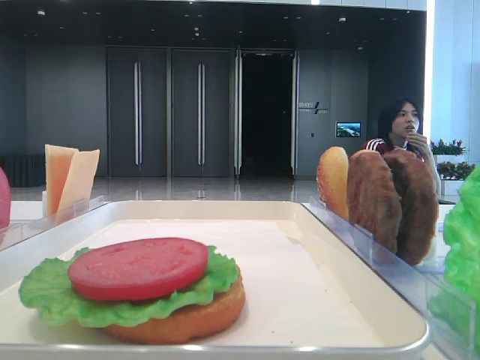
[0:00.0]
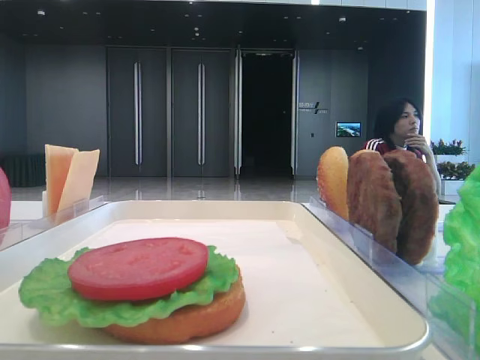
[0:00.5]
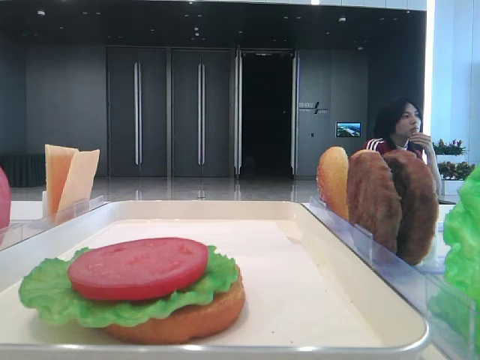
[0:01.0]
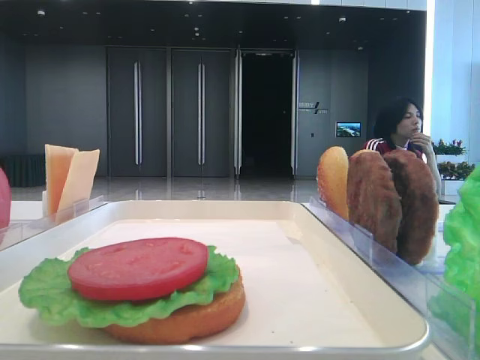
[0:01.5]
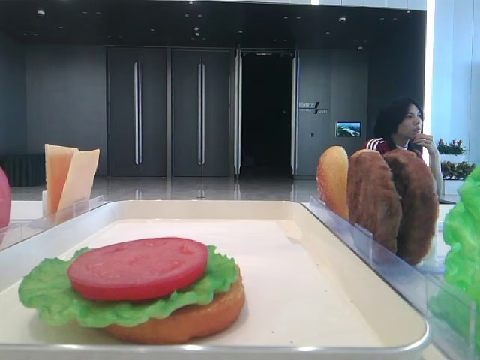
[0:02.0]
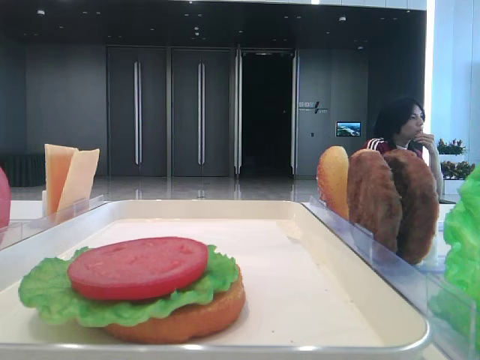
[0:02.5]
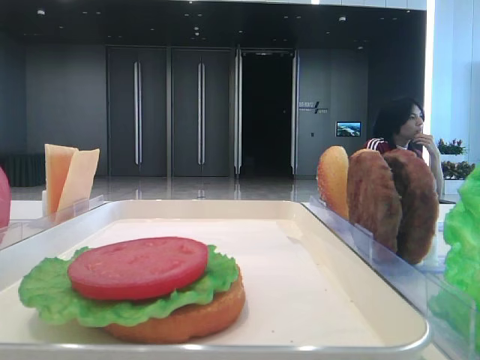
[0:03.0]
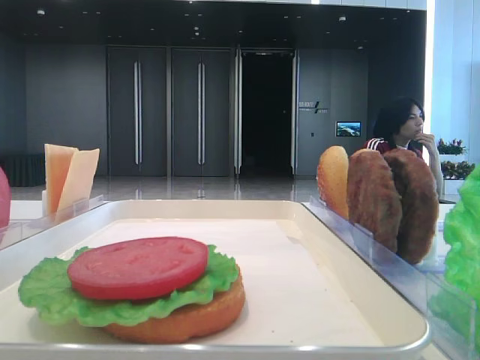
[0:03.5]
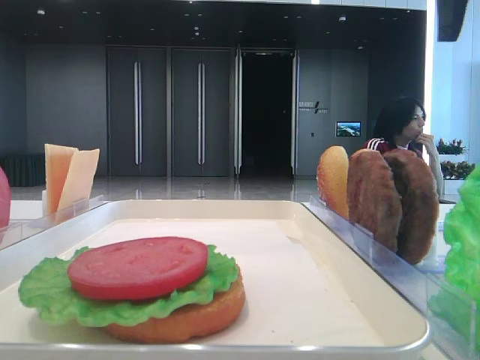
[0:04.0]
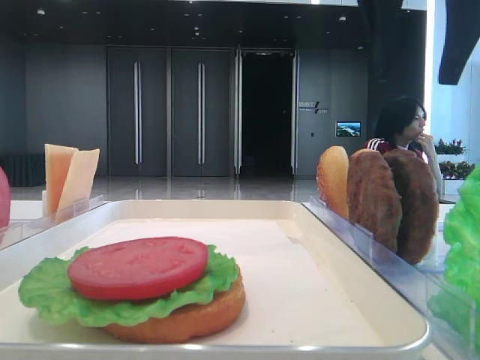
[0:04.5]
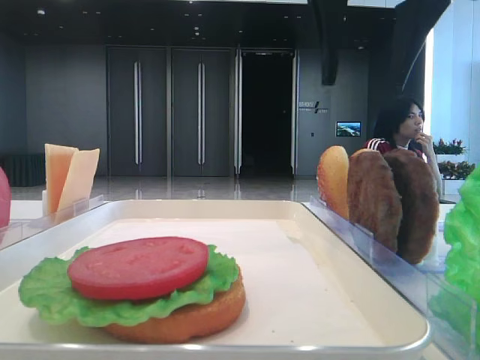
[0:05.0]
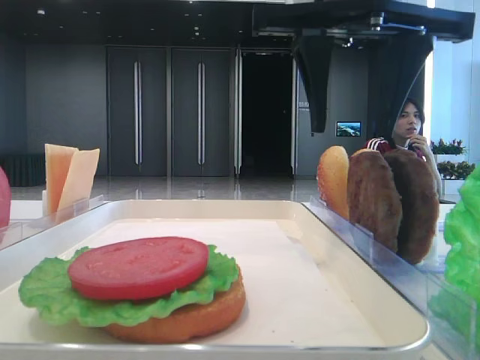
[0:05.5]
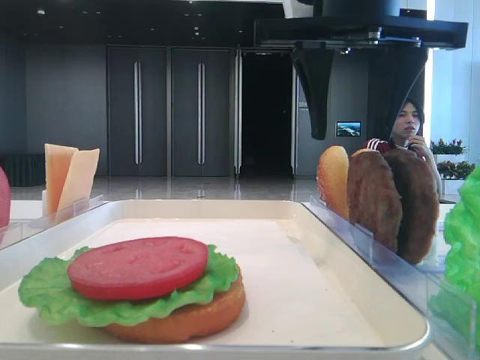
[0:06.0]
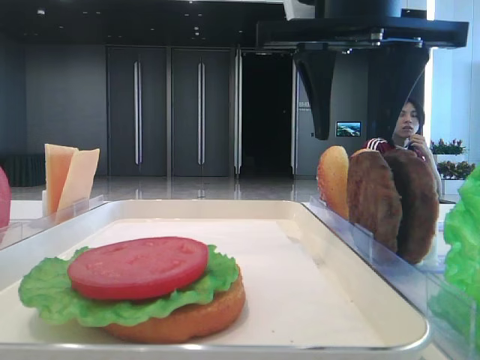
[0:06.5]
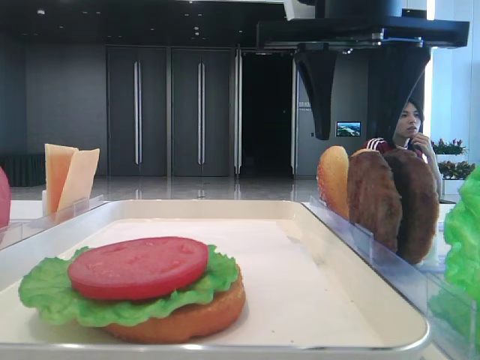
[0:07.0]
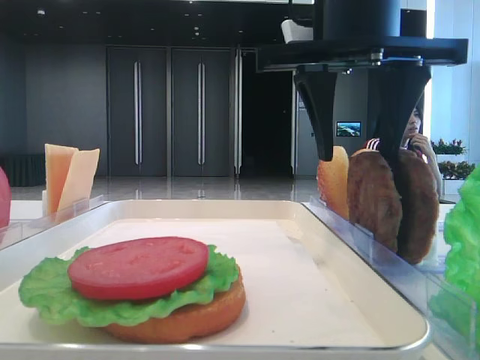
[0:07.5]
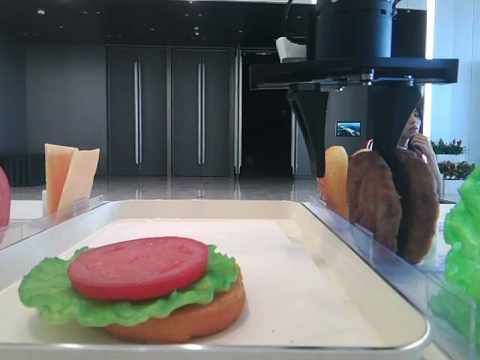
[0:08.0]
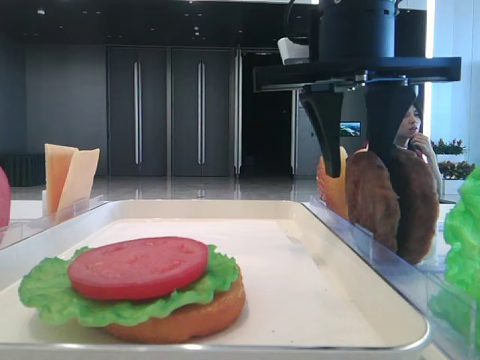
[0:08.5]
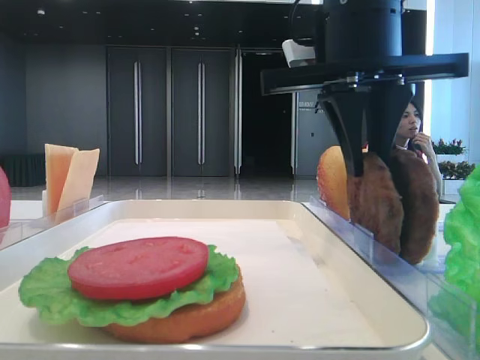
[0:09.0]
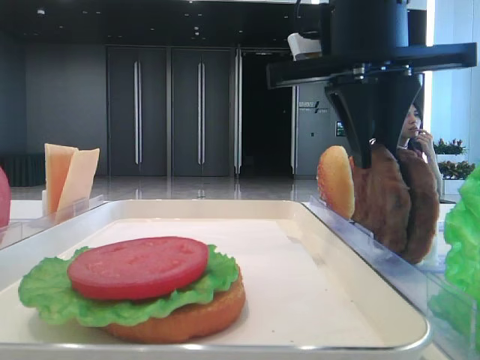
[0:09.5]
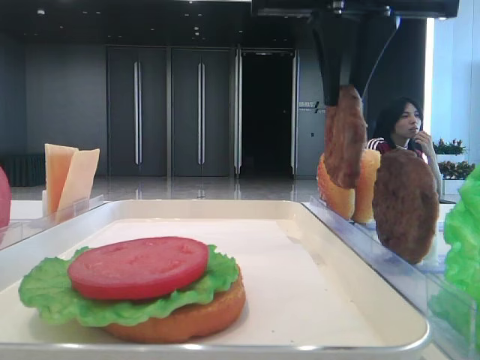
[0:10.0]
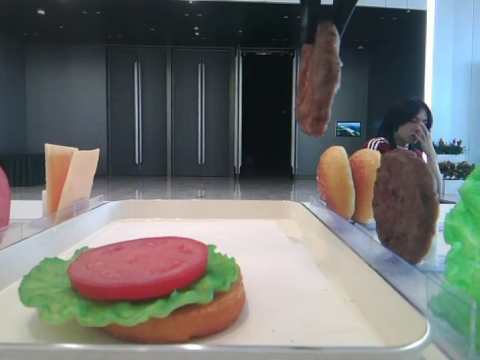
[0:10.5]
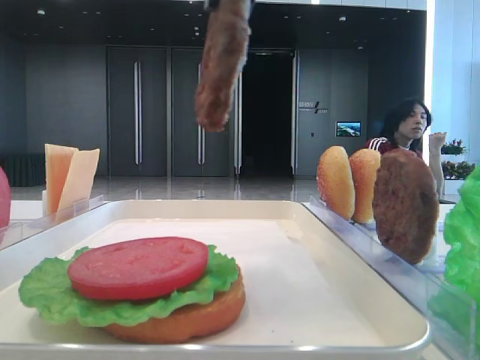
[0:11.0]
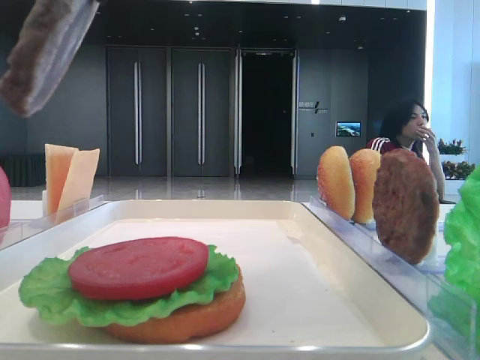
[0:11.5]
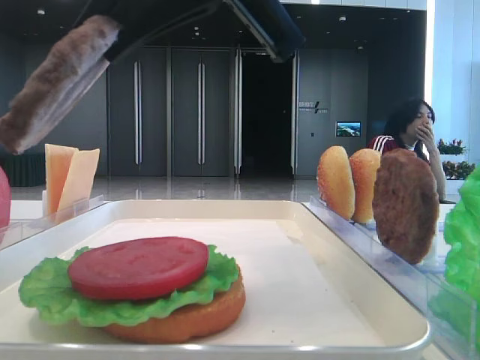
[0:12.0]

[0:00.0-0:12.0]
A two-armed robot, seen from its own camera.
Step, 0:00.0 to 0:09.0: Grab the patty with the right hand.
0:02.0 to 0:04.0: The right gripper heads forward and to the left, covering about 20 cm.
0:04.0 to 0:06.0: The right gripper is displaced to the left and downward by roughly 15 cm.
0:06.0 to 0:08.0: The grippers move only a little.
0:08.0 to 0:10.0: The right gripper shifts roughly 5 cm upward, and closes up.
0:10.0 to 0:12.0: The right gripper is displaced backward and to the left by some 10 cm.

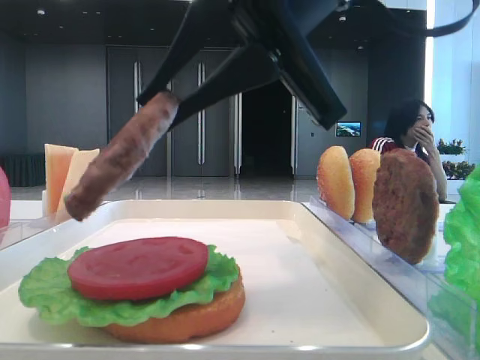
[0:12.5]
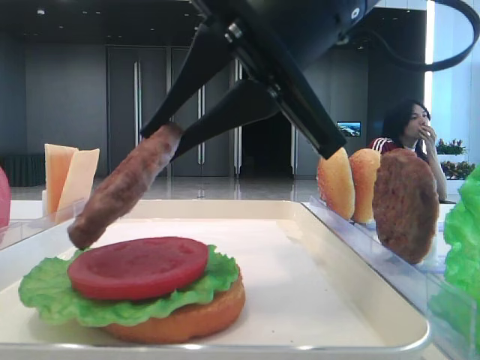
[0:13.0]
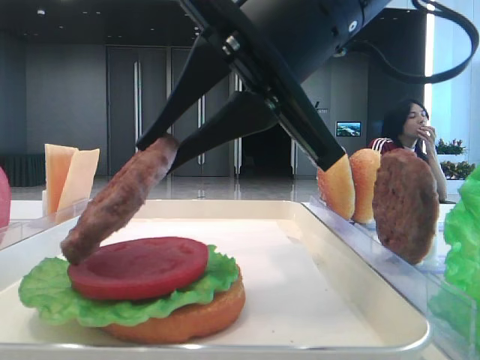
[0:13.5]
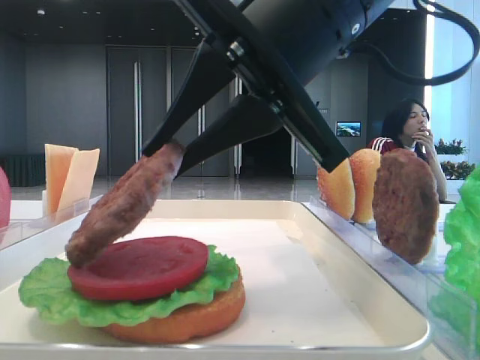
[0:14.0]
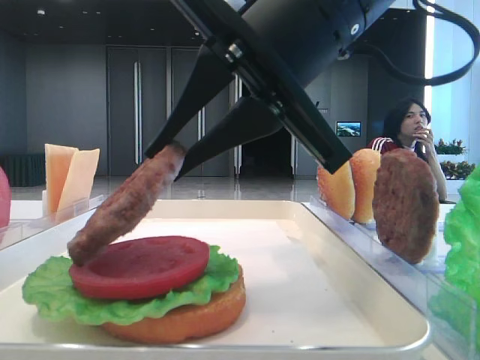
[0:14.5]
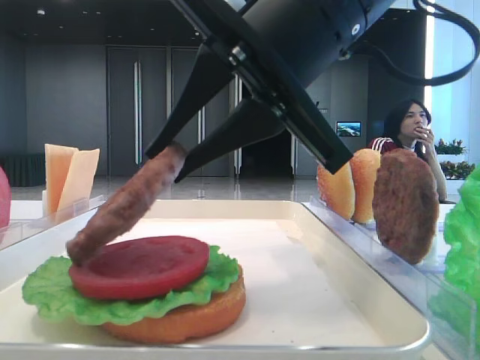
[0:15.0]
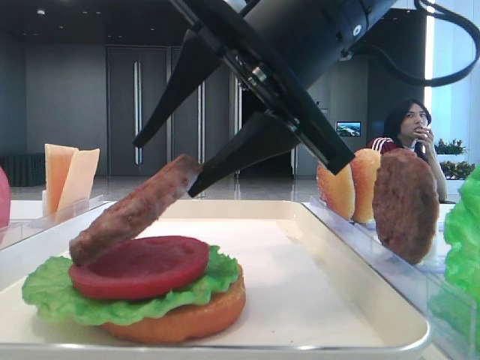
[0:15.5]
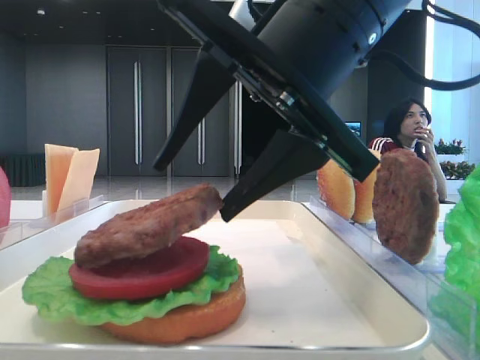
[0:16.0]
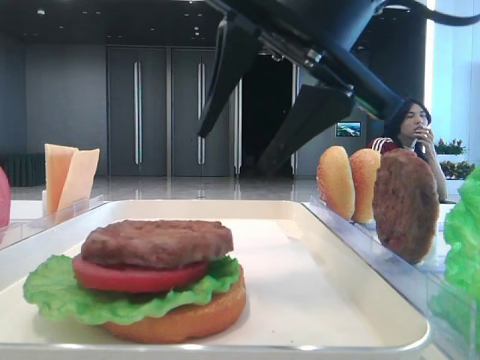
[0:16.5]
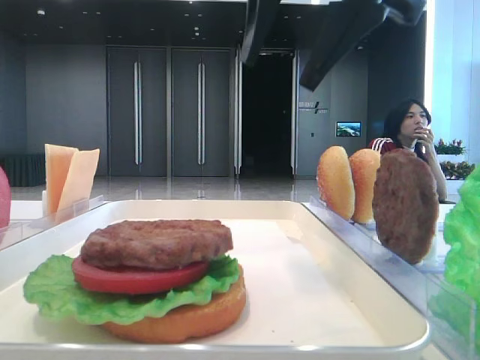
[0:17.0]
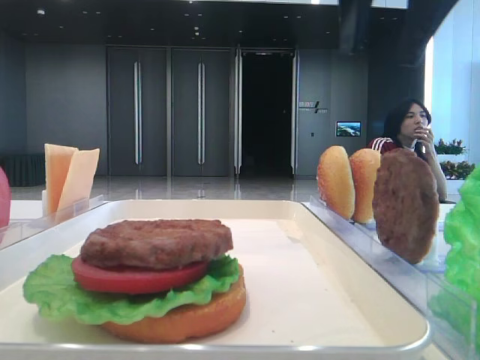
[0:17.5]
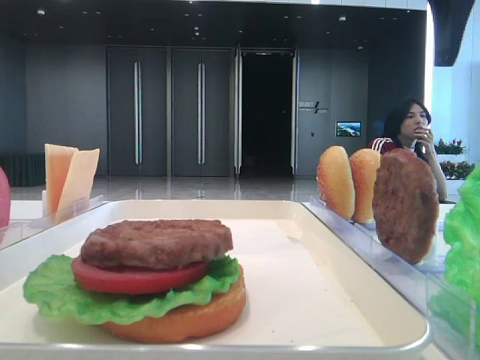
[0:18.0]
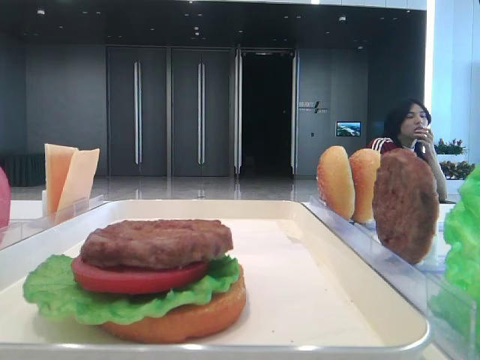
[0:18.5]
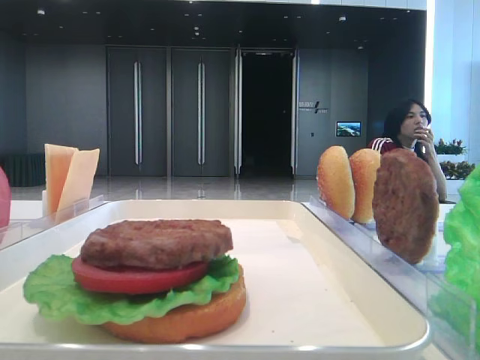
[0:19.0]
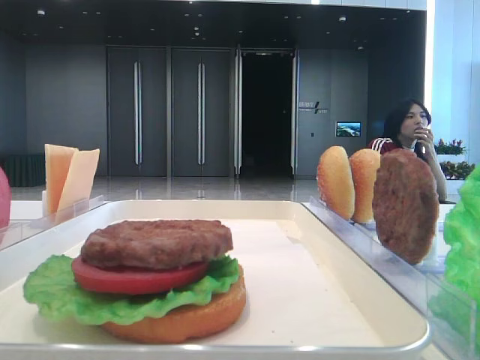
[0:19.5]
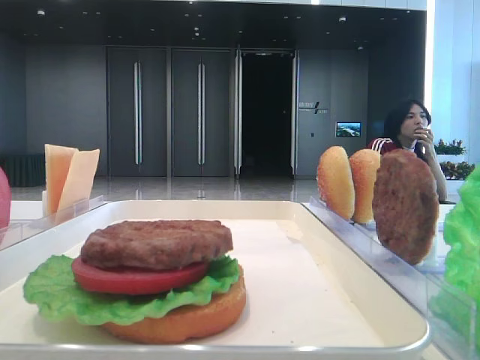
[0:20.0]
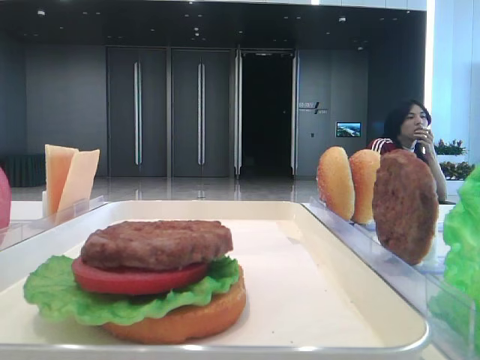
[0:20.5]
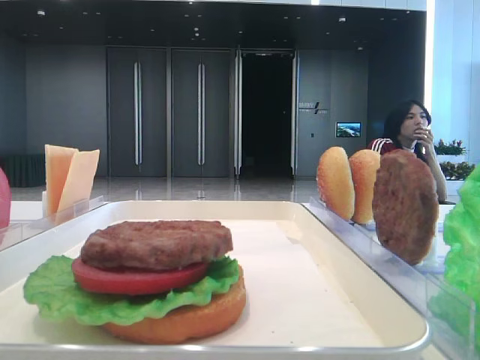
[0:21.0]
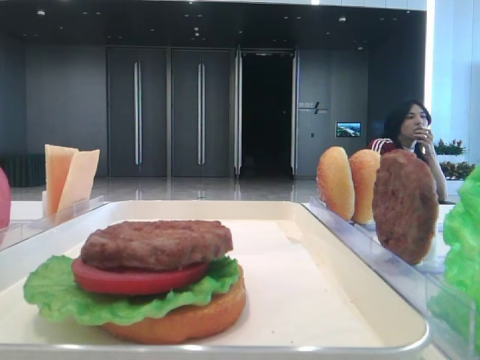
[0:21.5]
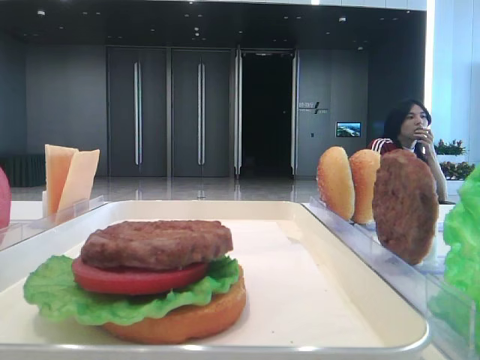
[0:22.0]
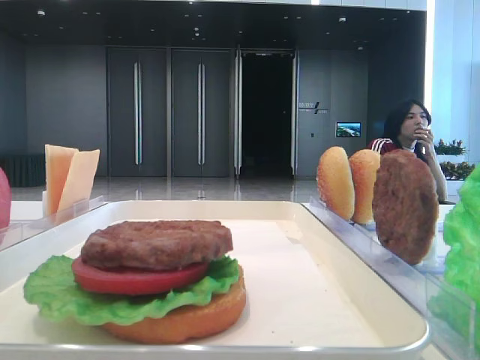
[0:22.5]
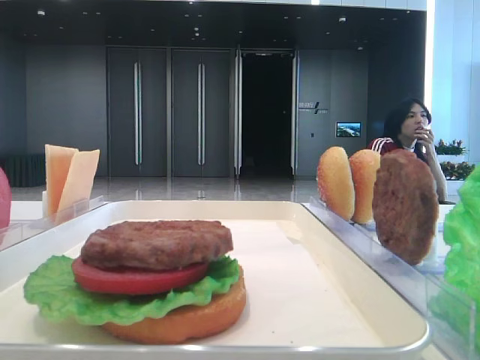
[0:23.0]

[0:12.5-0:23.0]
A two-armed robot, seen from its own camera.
Step, 0:12.5 to 0:16.0: Place the patty on the tomato slice with the right hand.
0:12.5 to 0:14.5: The grippers stay close to where they were, moving slightly.
0:14.5 to 0:16.5: The right gripper opens.
0:16.5 to 0:19.0: The right gripper travels to the right and upward by about 25 cm.
0:19.0 to 0:21.0: The right gripper shifts approximately 30 cm backward.

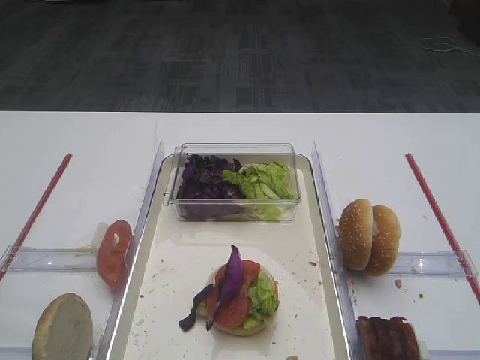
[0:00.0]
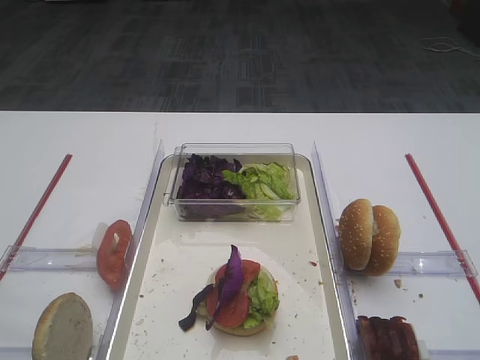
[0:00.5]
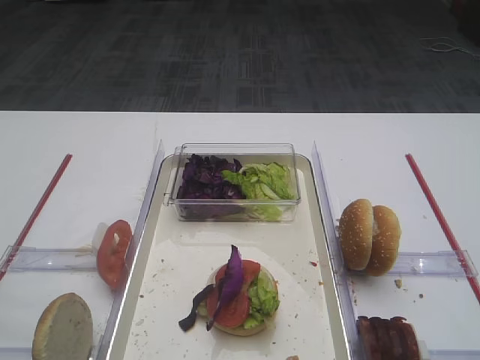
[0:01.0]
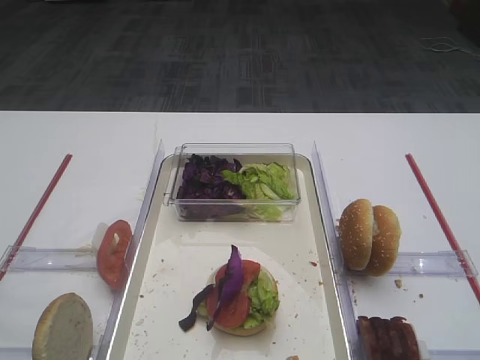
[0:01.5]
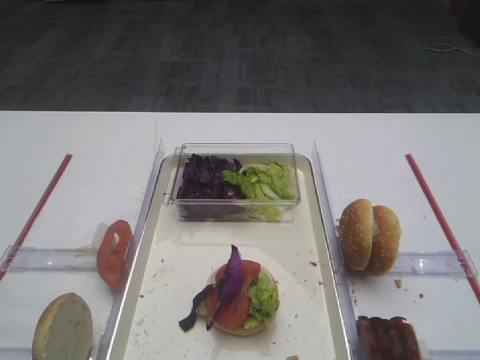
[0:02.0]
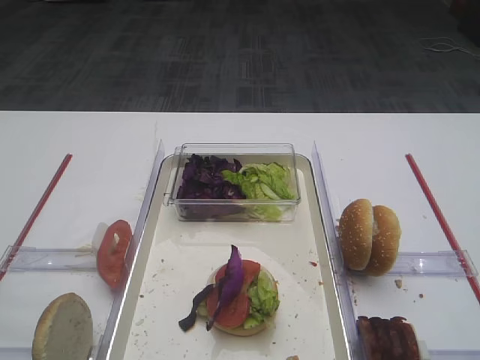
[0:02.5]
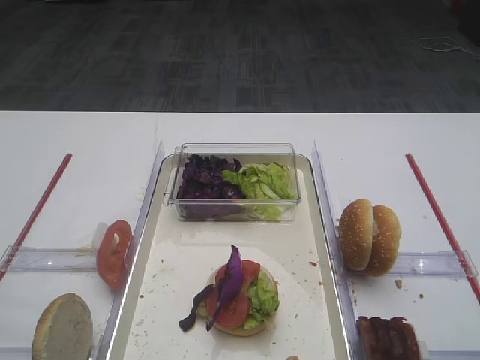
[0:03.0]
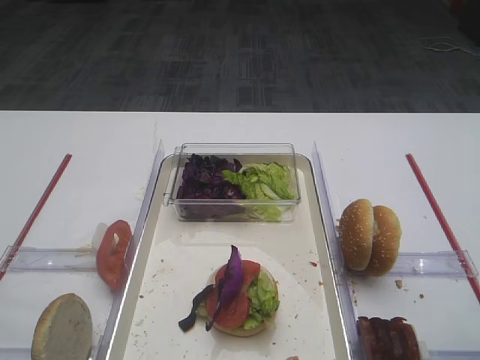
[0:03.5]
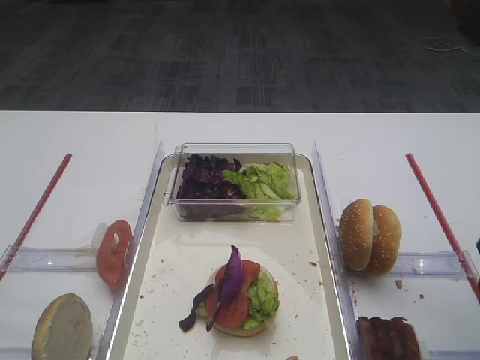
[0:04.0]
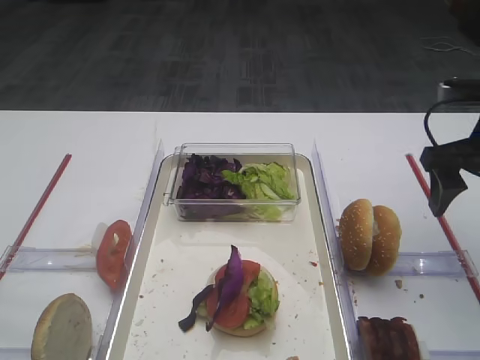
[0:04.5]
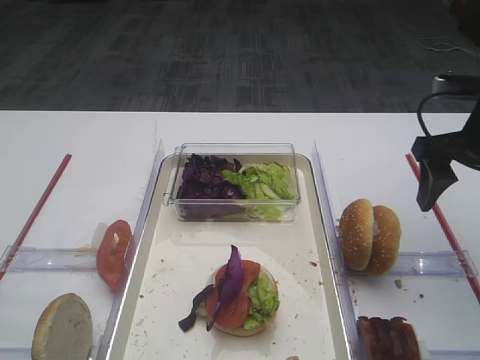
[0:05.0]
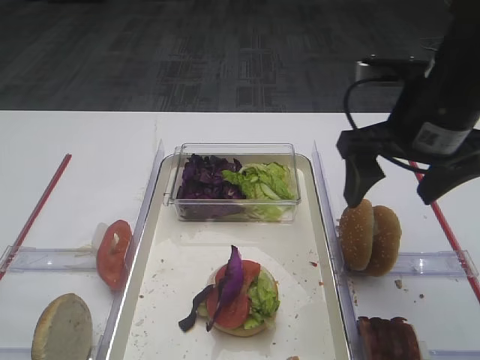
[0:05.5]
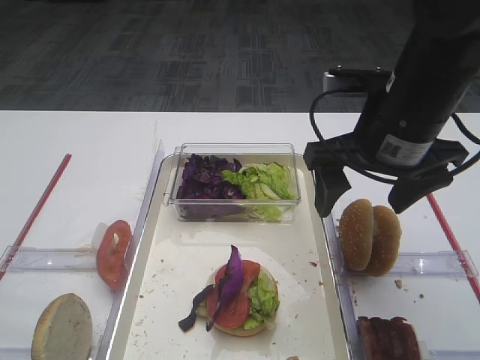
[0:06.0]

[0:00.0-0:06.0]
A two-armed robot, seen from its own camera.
0:02.0 to 0:04.0: The right gripper moves forward, about 20 cm.
0:04.0 to 0:06.0: The right gripper heads to the left and forward, covering roughly 15 cm.
